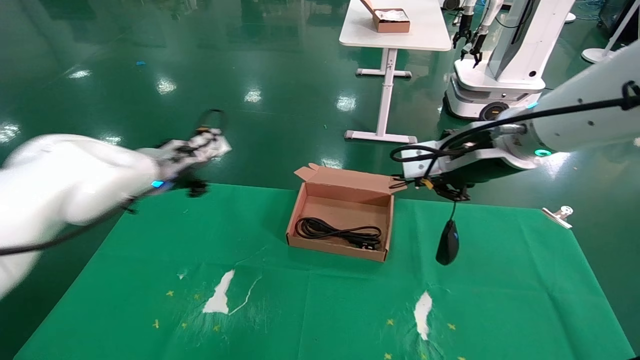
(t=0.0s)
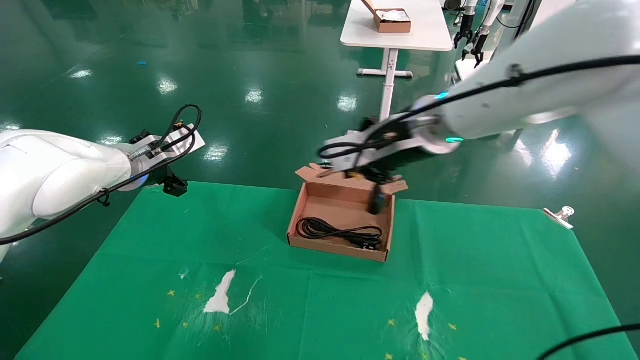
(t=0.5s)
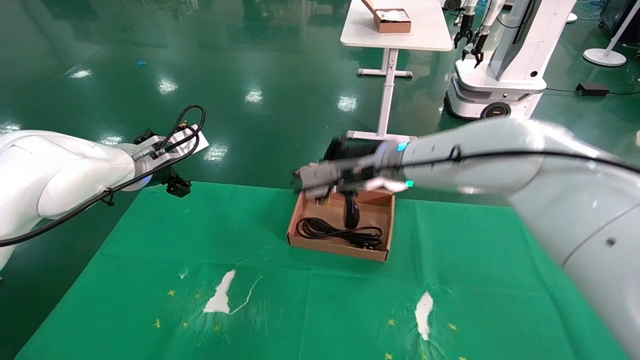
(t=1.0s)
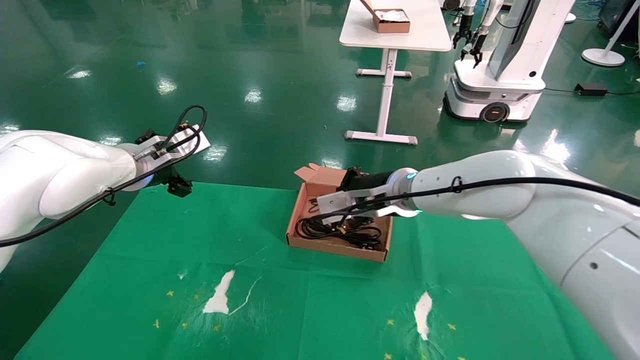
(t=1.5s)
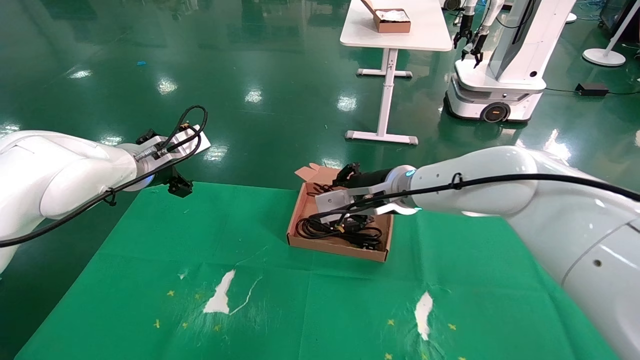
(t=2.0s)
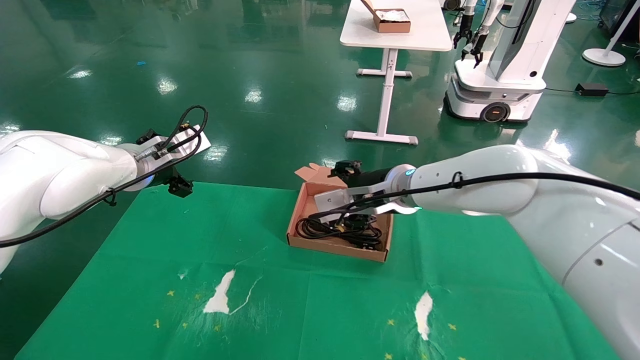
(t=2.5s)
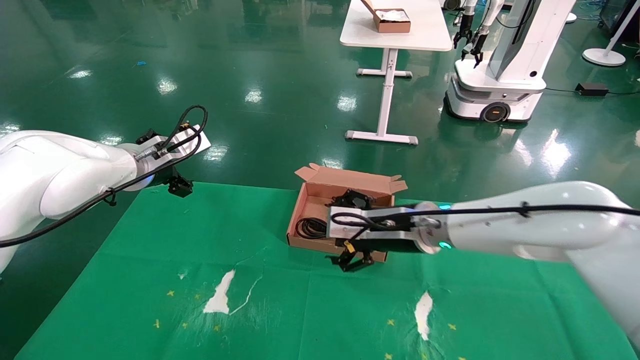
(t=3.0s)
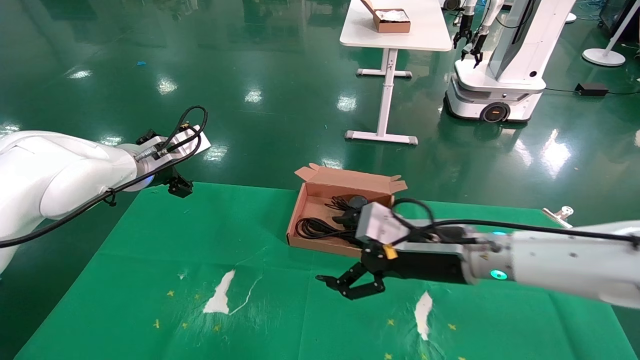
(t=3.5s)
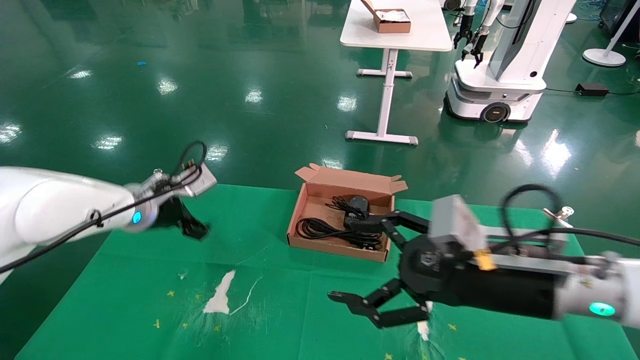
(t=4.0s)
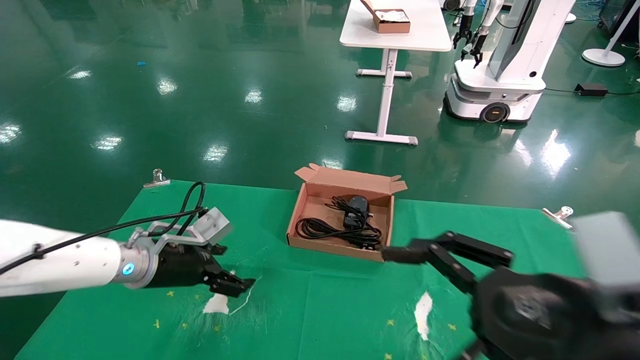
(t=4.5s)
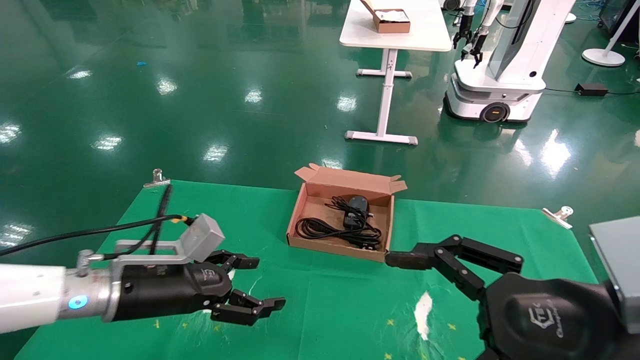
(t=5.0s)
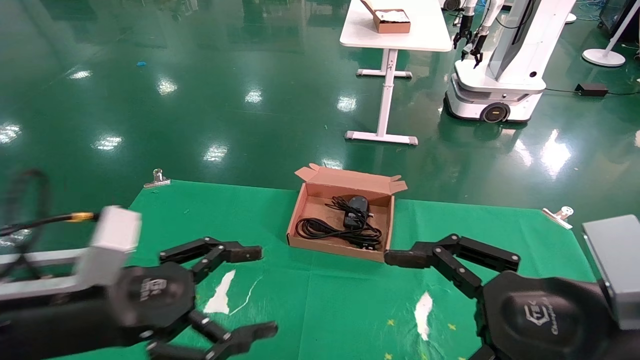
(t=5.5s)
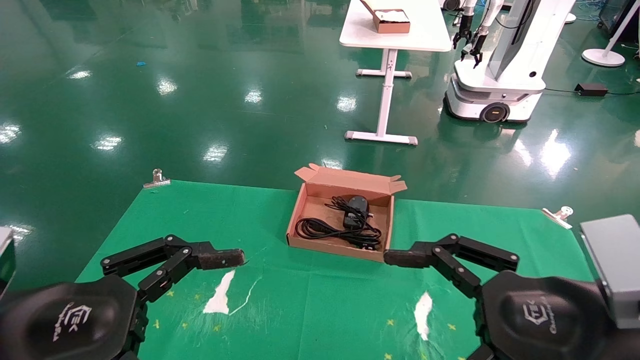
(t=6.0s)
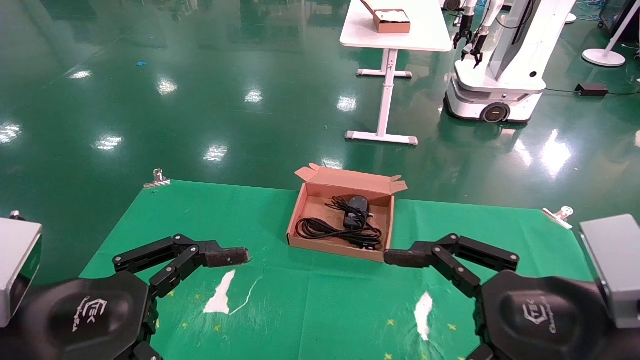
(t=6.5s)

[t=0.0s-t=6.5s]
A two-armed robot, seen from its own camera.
Step, t=0.0s to t=2.0s: Place the mouse and power cord into the box.
t=0.0s to t=2.0s: The left gripper travels to the left by approximately 5 cm, and opens up, while the right gripper moves to the left, forward and downward, approximately 15 cm.
t=2.0s to t=4.5s: The right gripper goes approximately 30 cm backward and to the right, and opens. The left gripper moves downward and backward, about 15 cm.
t=4.5s to t=6.5s: The left gripper is displaced backward by approximately 25 cm.
